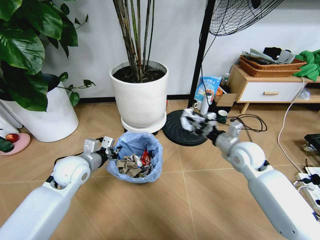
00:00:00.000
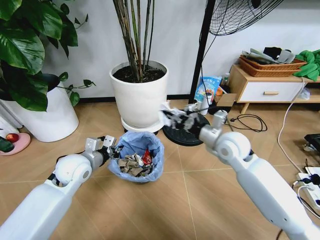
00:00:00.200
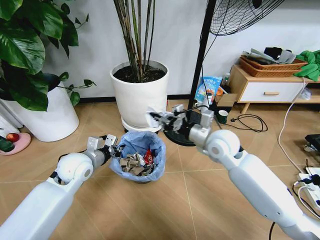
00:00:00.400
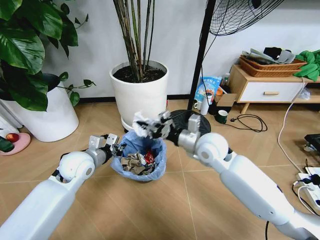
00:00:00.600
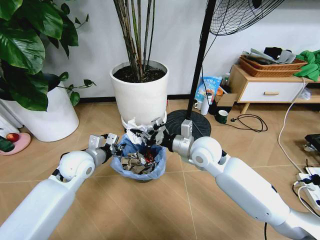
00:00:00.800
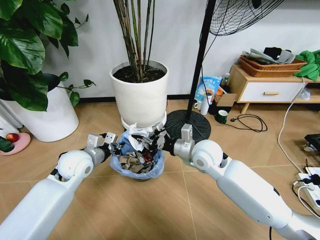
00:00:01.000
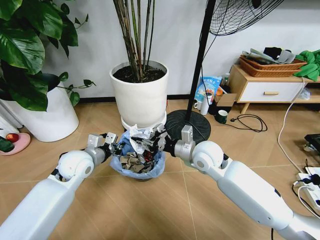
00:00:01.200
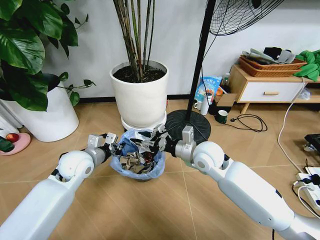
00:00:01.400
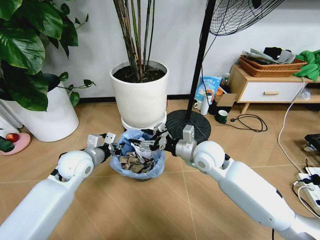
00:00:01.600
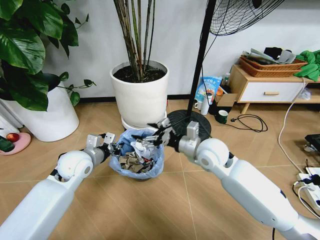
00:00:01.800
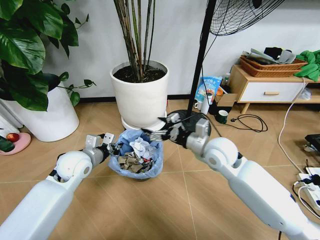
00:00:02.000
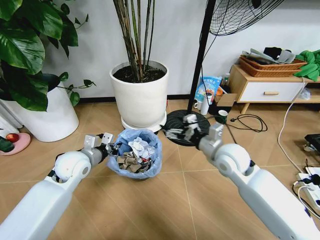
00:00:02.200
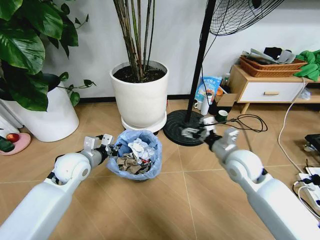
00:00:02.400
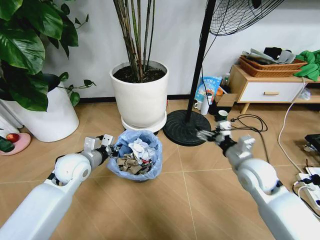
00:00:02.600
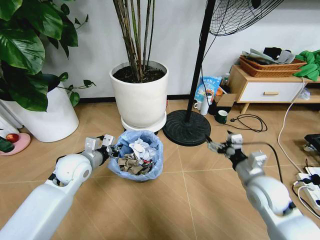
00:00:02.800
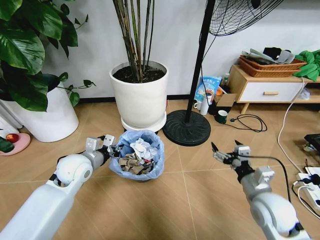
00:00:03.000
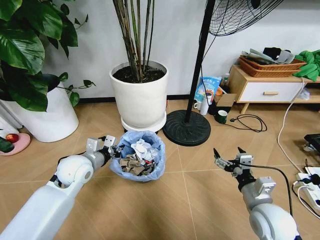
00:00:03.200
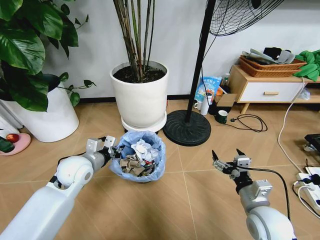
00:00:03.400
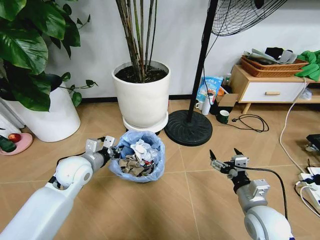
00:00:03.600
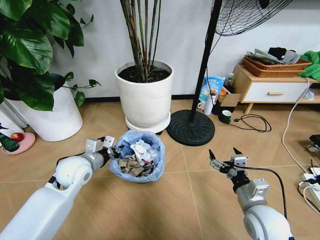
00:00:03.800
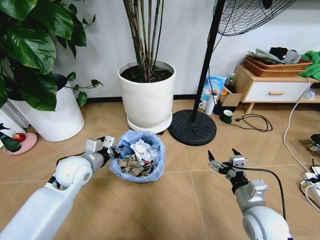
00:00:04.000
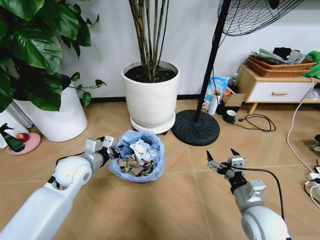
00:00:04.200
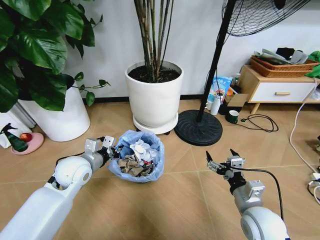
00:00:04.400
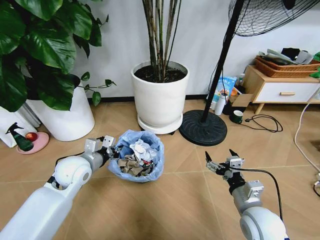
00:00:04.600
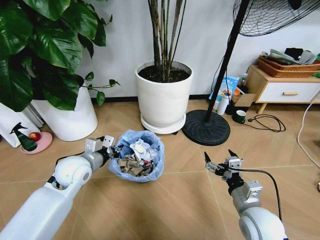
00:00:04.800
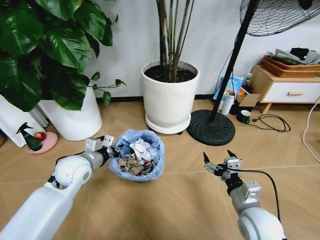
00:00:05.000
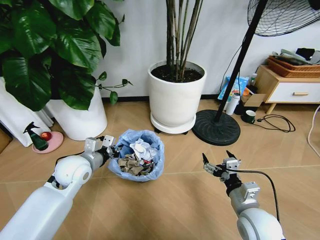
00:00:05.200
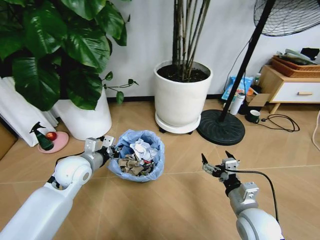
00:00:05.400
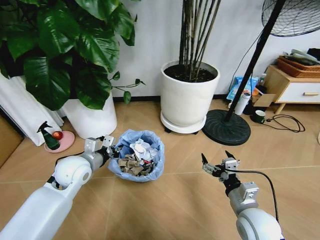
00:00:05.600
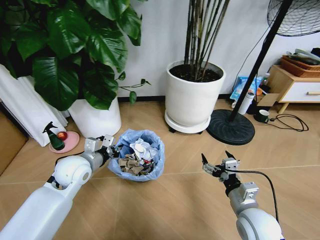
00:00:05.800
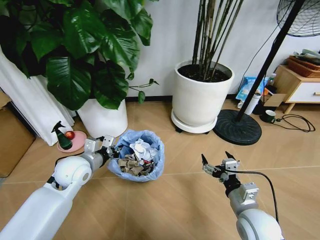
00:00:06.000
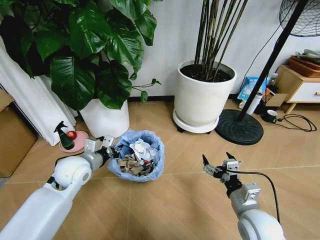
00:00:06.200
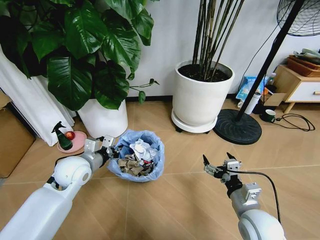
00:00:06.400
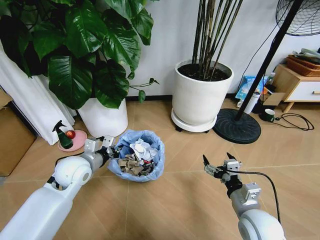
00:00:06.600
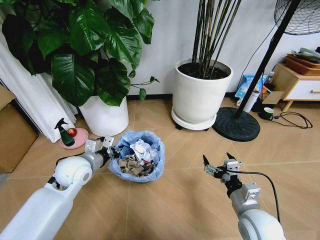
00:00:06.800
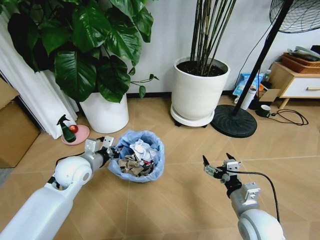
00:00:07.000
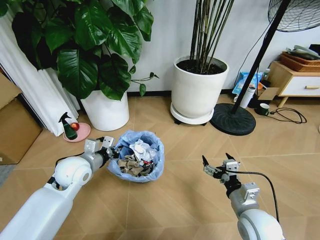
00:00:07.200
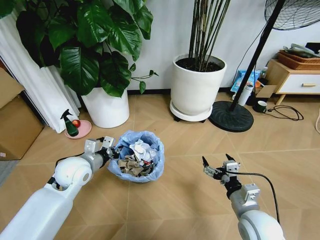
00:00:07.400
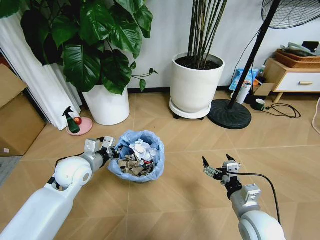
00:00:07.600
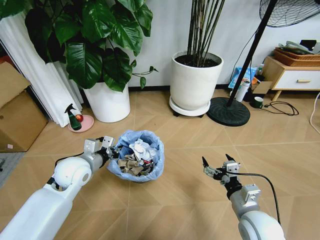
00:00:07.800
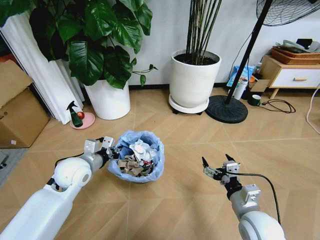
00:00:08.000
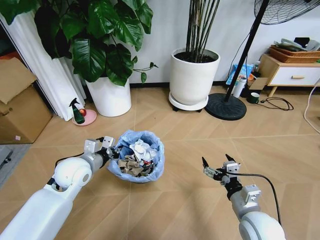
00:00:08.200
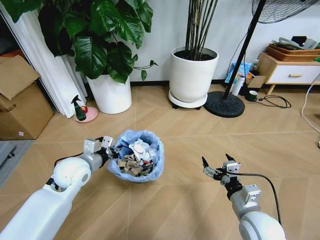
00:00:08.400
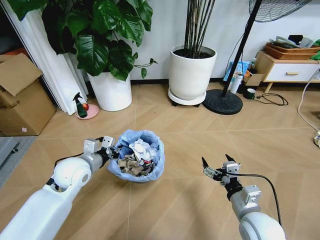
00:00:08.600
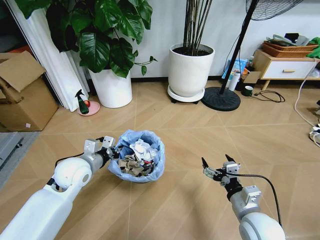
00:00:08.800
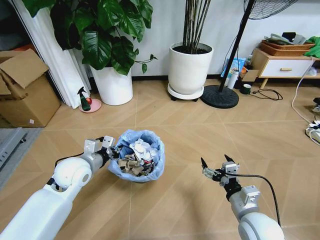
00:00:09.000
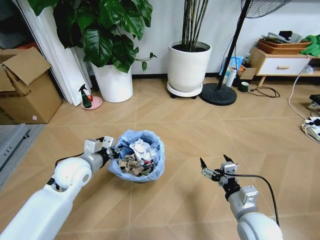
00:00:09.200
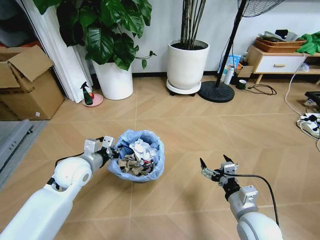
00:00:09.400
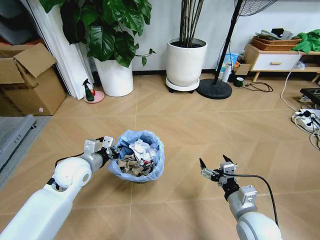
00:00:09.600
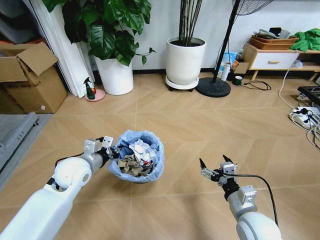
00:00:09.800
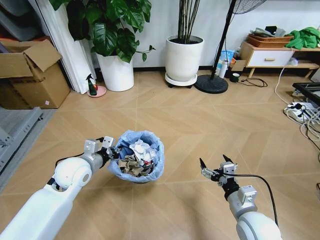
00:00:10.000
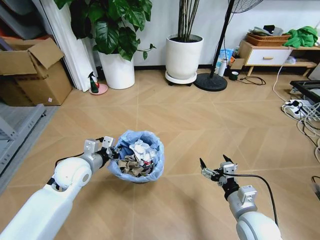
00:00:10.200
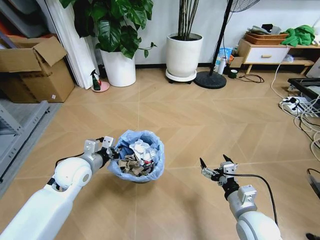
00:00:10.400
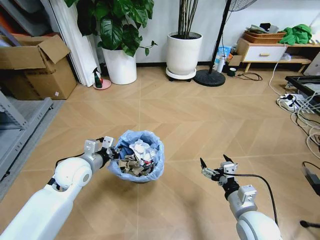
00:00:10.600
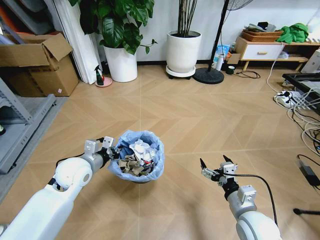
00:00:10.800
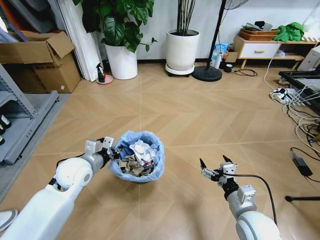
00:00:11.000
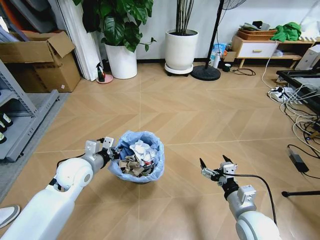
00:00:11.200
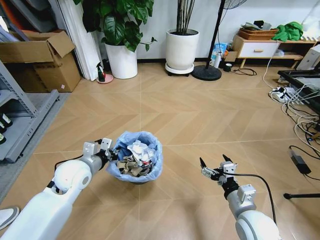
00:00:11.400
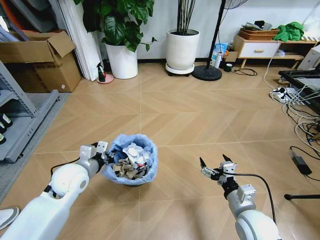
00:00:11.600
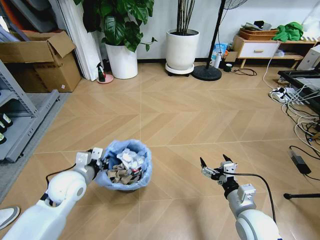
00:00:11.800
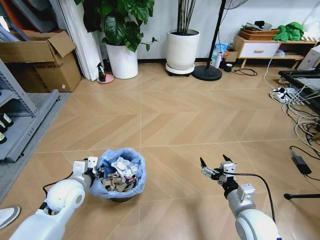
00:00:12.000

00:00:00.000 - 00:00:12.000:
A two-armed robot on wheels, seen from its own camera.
Task of the whole recording: Pick up the trash bin and place the garbage on the floor into it.
00:00:00.000 - 00:00:01.600: The right gripper moves to the left, approximately 15 cm, and opens up.
00:00:01.600 - 00:00:03.000: The right gripper travels backward and to the right by about 20 cm.
00:00:10.400 - 00:00:12.000: The left gripper shifts by roughly 5 cm.

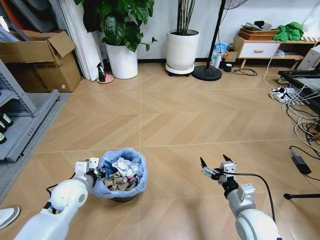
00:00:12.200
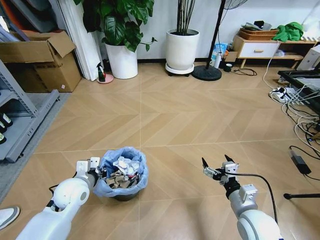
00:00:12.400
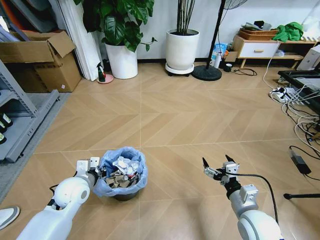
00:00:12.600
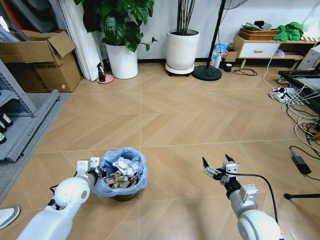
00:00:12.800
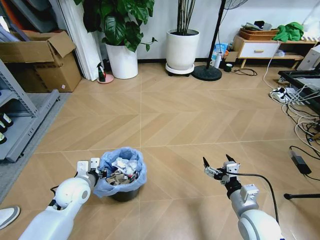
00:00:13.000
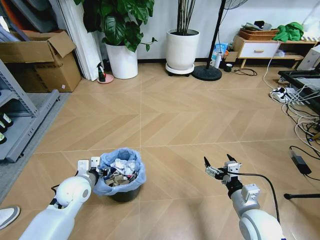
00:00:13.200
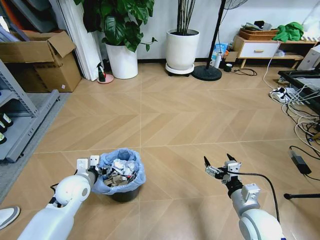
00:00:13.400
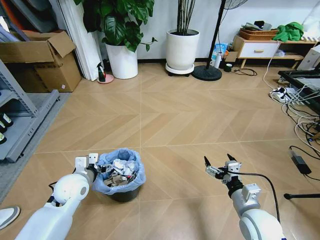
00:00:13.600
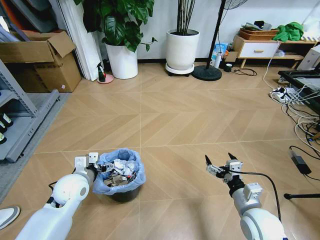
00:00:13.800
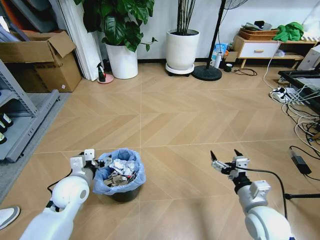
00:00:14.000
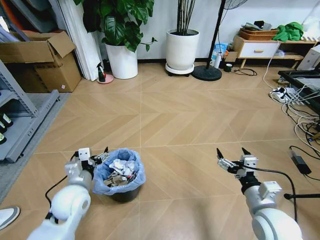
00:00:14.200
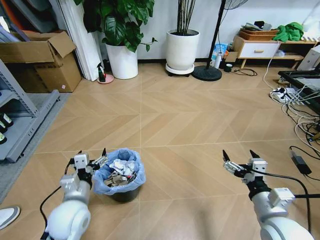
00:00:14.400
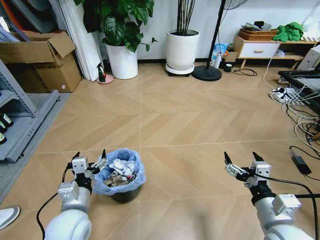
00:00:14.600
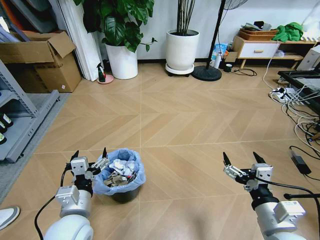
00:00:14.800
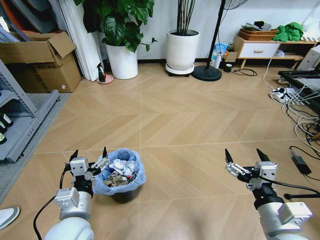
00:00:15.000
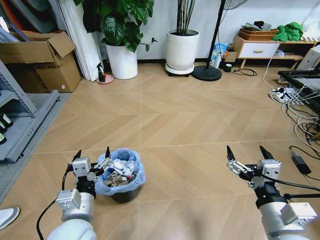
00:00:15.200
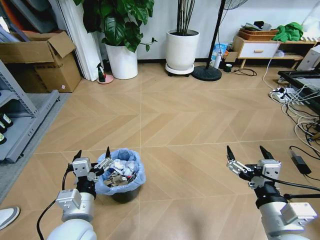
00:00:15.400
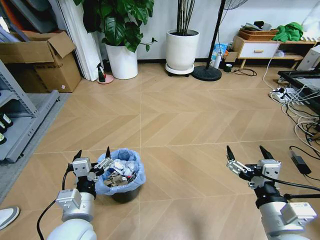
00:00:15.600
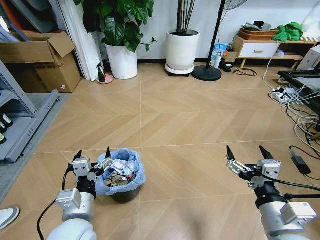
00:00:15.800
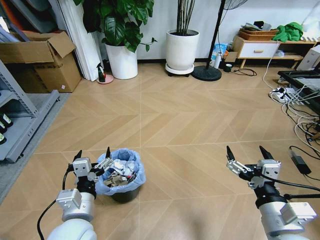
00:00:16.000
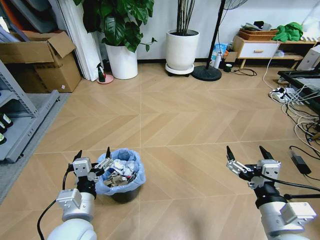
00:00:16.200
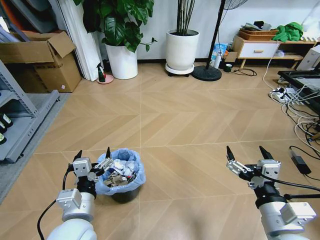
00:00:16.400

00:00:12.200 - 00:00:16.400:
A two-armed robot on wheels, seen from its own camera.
Task of the whole recording: Pick up the trash bin and place the garbage on the floor into it.
00:00:12.200 - 00:00:13.600: The left gripper opens.
00:00:13.600 - 00:00:15.000: The left gripper is displaced backward and to the right by approximately 15 cm. Meanwhile the right gripper heads upward and backward, covering roughly 15 cm.
00:00:15.000 - 00:00:16.400: Both grippers stay about where they are.

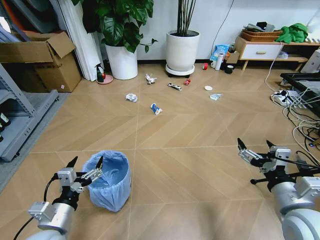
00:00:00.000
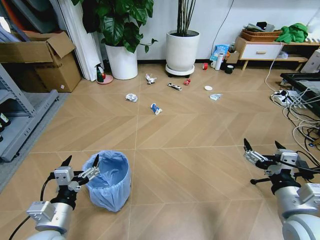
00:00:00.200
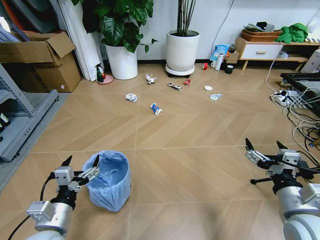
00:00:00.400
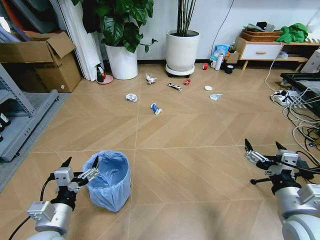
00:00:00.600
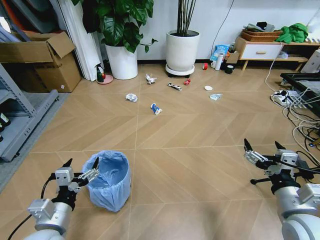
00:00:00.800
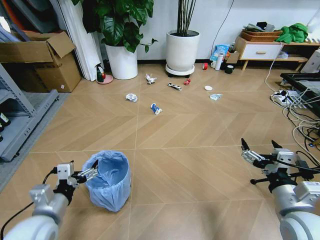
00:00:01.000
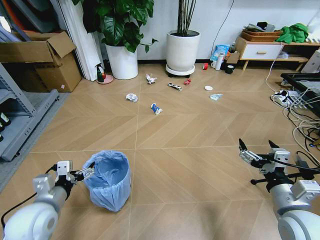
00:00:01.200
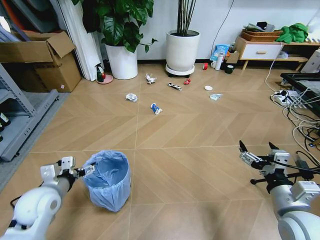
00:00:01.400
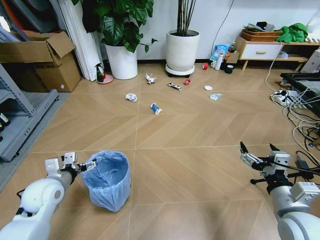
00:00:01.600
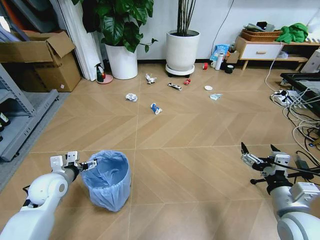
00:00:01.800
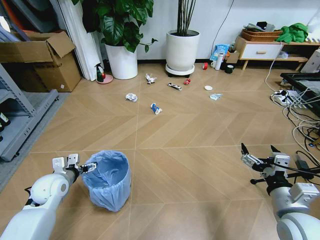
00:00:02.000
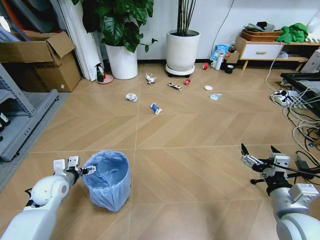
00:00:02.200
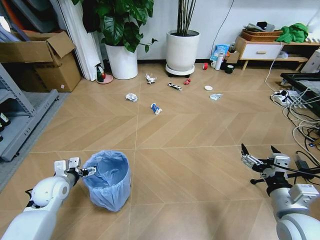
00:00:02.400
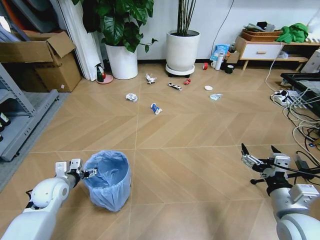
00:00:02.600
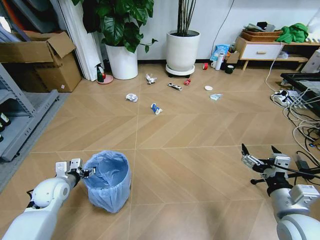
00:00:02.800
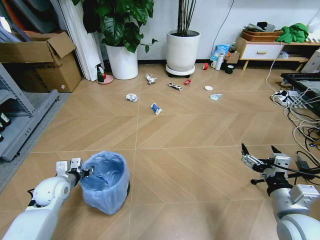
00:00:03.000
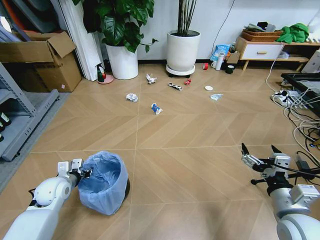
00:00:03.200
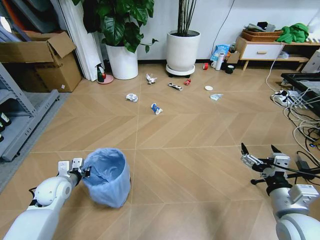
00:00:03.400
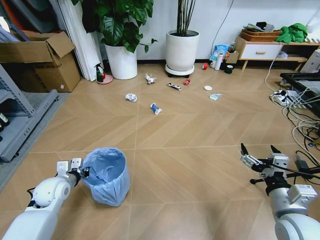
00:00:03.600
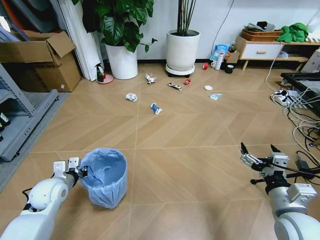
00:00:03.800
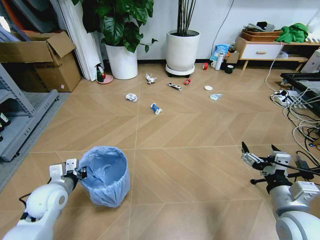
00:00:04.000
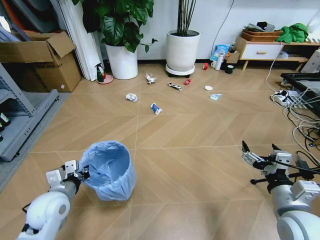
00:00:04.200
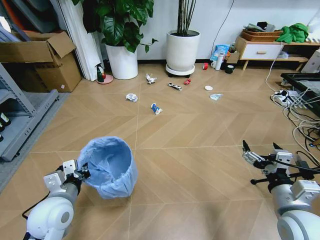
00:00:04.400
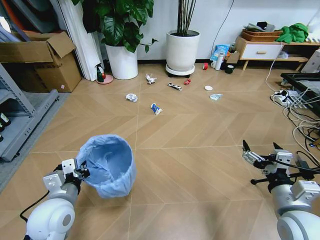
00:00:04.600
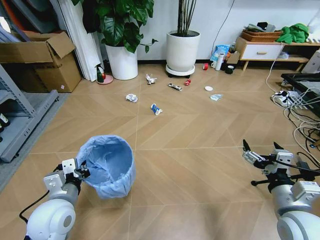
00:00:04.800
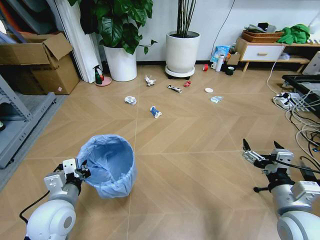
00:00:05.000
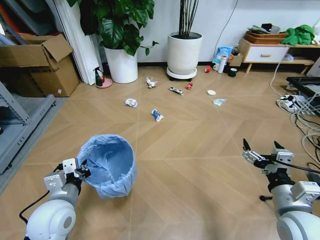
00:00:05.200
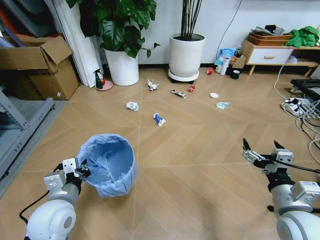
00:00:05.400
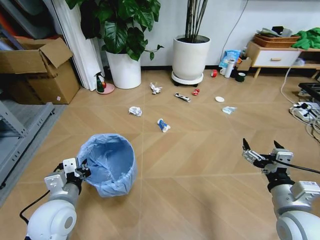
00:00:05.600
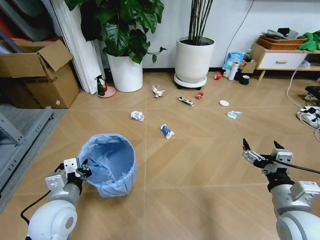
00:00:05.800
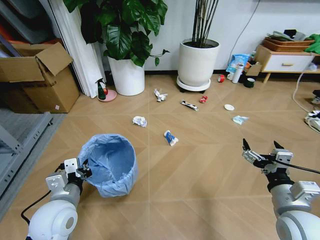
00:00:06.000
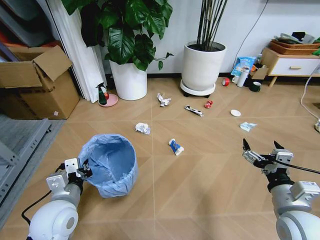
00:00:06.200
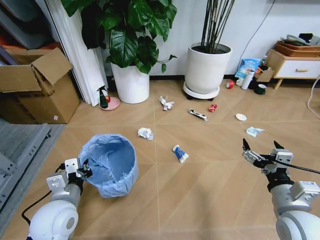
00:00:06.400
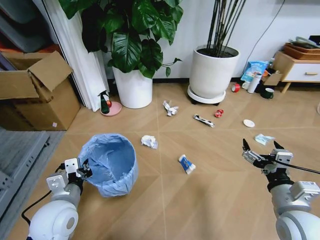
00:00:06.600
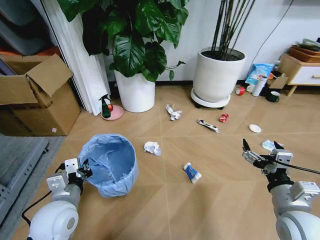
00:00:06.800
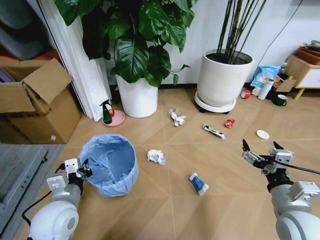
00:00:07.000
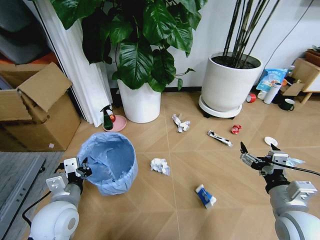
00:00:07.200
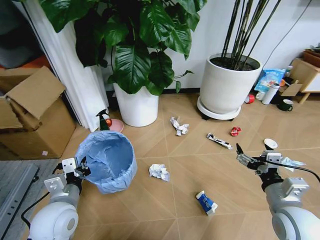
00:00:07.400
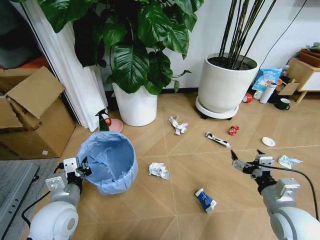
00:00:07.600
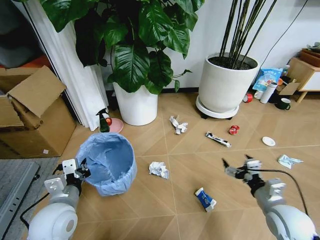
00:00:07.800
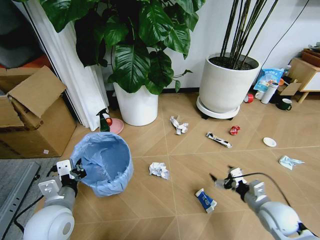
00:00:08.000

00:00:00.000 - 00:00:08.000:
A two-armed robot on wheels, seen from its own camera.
Task of the whole recording: Pick up the trash bin and place the garbage on the floor into it.
00:00:01.600 - 00:00:03.200: The left gripper moves downward, approximately 5 cm, and closes its fingers.
00:00:03.200 - 00:00:04.800: The left gripper travels backward, to the right and upward by approximately 15 cm.
00:00:06.400 - 00:00:08.000: The right gripper heads downward and forward, covering roughly 15 cm.